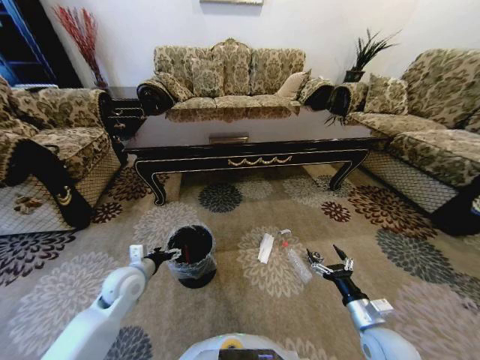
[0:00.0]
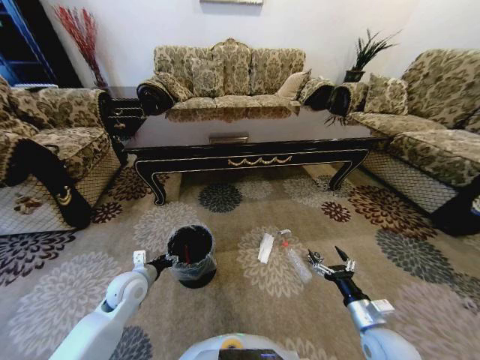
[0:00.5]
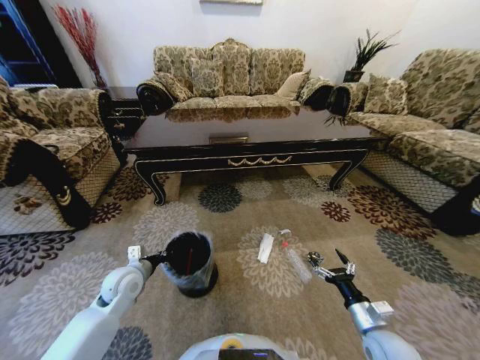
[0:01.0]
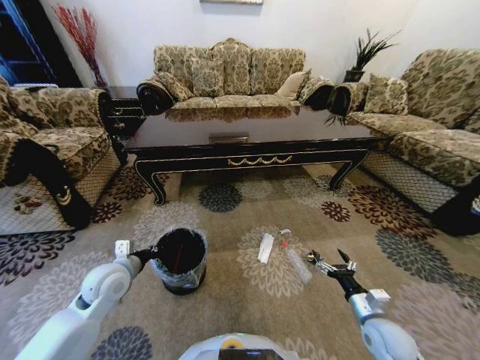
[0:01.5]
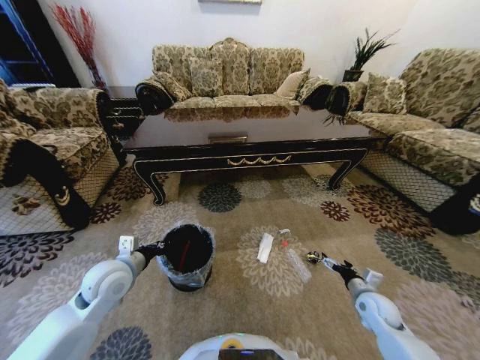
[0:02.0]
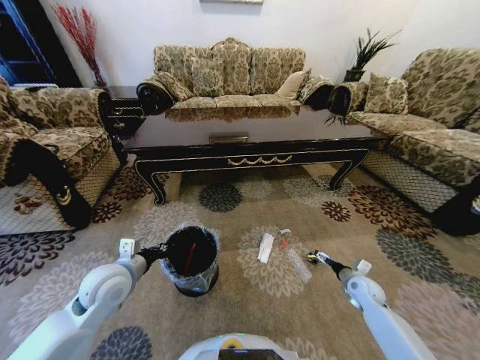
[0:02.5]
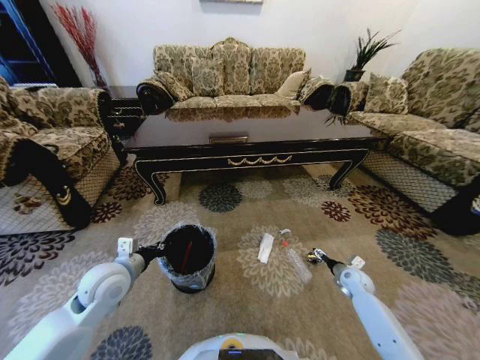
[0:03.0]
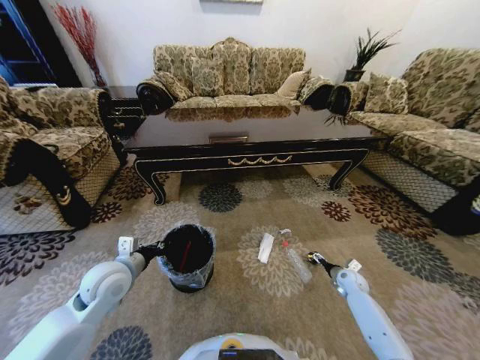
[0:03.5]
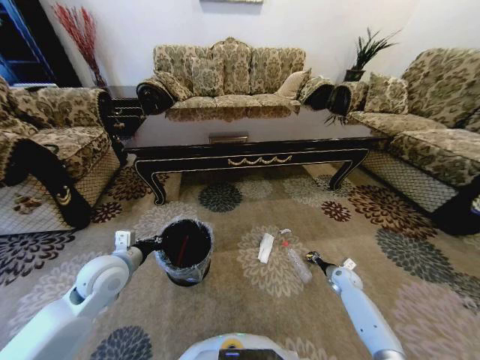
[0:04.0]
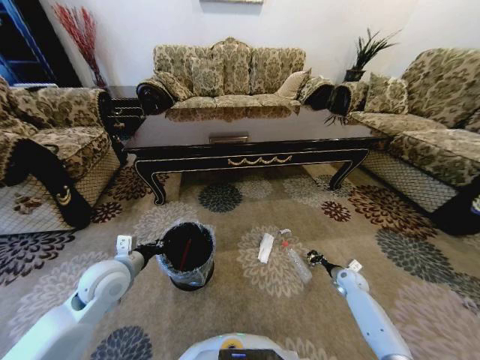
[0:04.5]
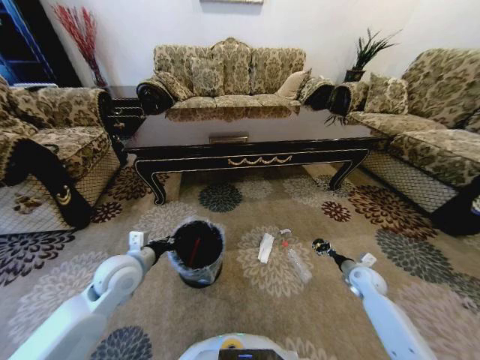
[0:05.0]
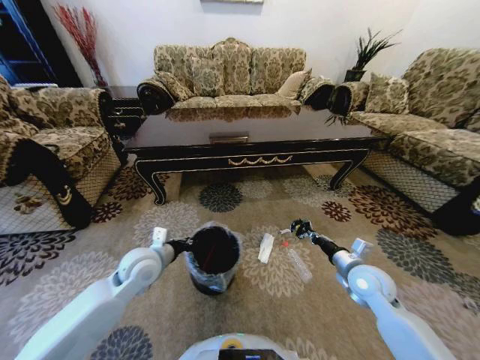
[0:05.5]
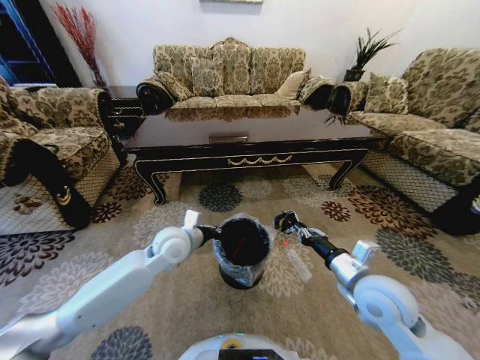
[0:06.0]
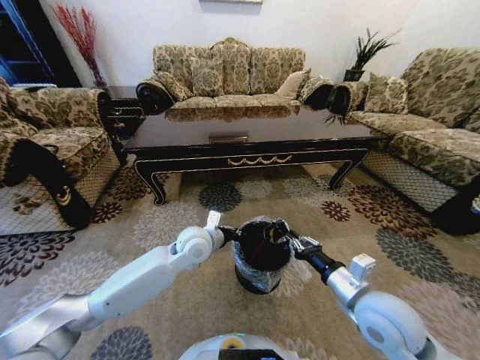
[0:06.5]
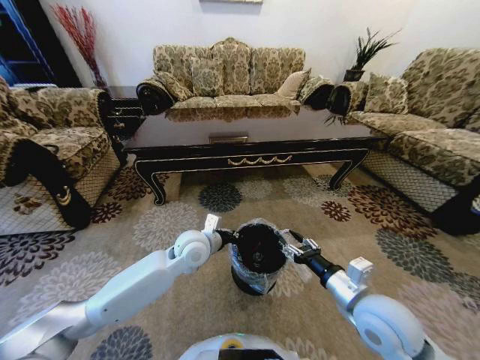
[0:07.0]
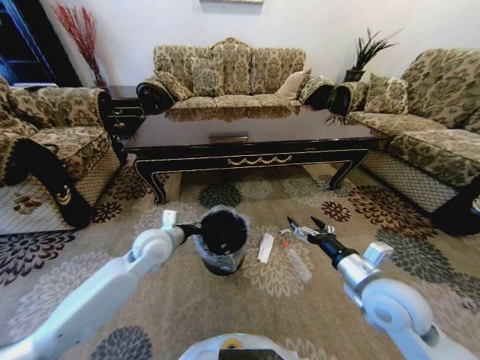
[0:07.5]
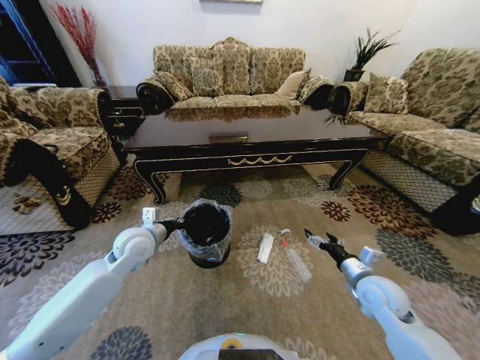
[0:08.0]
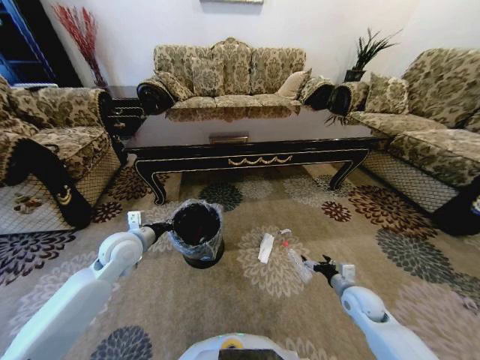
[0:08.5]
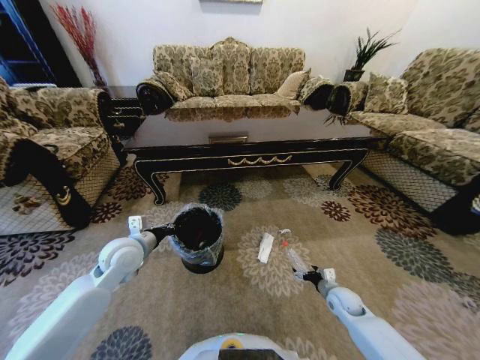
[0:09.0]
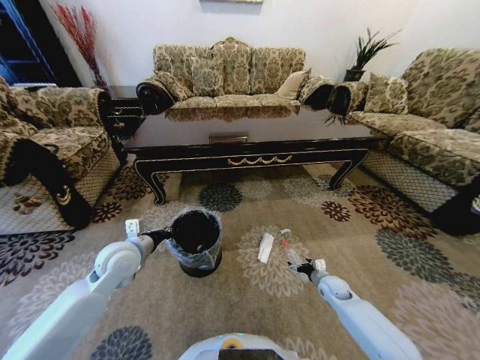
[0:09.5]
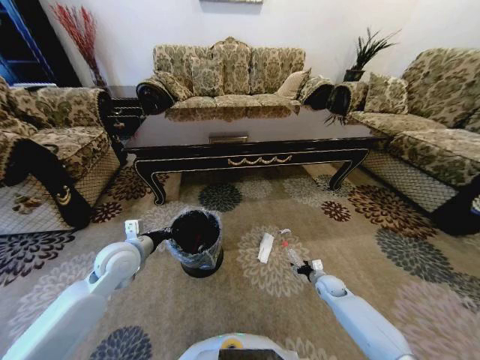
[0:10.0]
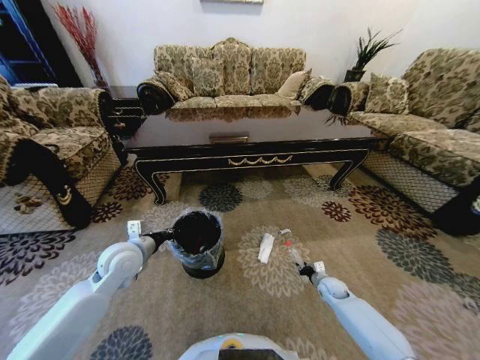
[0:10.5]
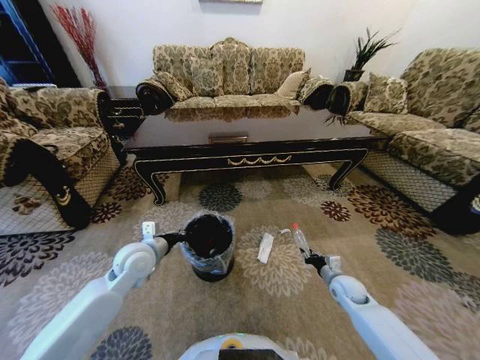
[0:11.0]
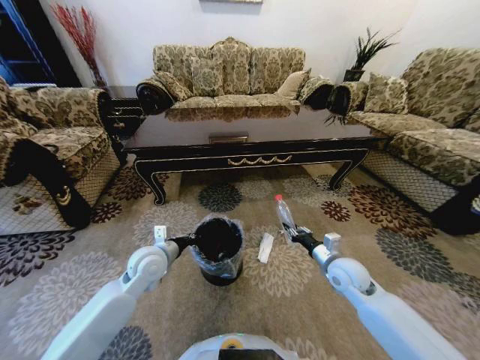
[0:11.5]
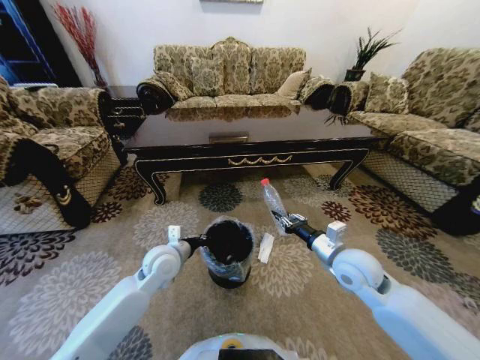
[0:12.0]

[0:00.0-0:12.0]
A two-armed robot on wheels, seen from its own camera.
Task of the whole recording: Move to the front of the table and pick up the trash from the floor, then place it into the trash bin.
0:00.0 to 0:02.0: The right gripper moves forward, to the right and downward, roughly 15 cm. The left gripper goes about 5 cm upward, and closes up.
0:02.0 to 0:04.0: The right gripper goes about 15 cm forward and downward, and closes up.
0:04.0 to 0:06.0: The right gripper travels upward, to the left and backward by some 35 cm, and closes up; the left gripper shifts some 15 cm to the right and forward.
0:06.0 to 0:08.0: The left gripper moves to the left, about 10 cm. The right gripper moves downward and to the right, roughly 10 cm, and opens up.
0:08.0 to 0:10.0: The right gripper shifts some 25 cm downward and forward.
0:10.0 to 0:12.0: The right gripper heads upward, covering about 30 cm, and closes; the left gripper shifts roughly 10 cm to the right.

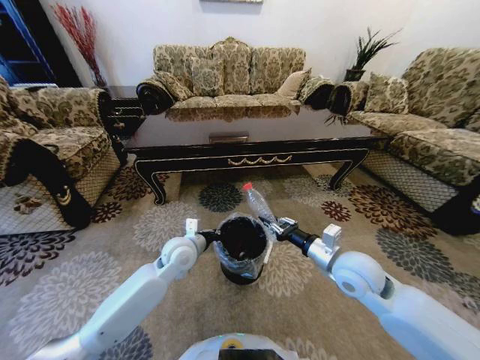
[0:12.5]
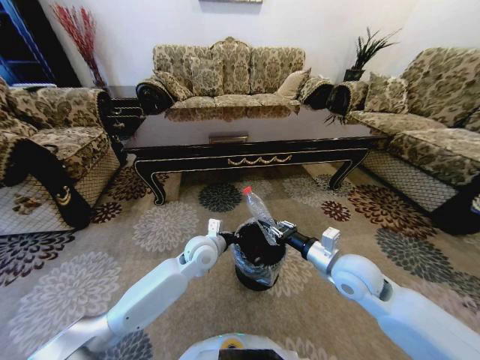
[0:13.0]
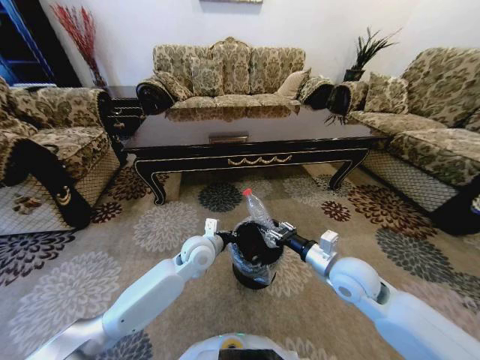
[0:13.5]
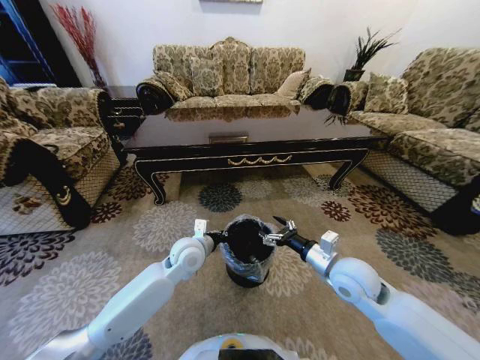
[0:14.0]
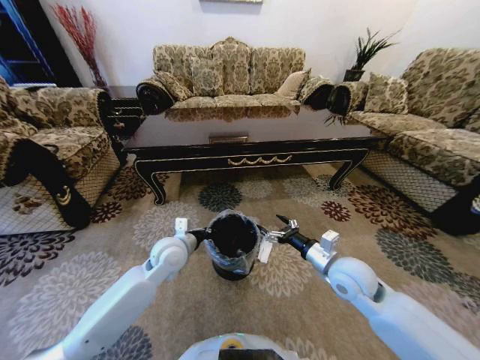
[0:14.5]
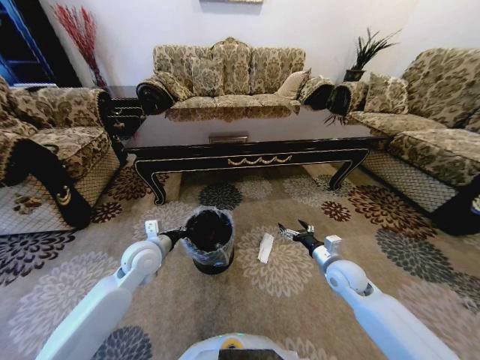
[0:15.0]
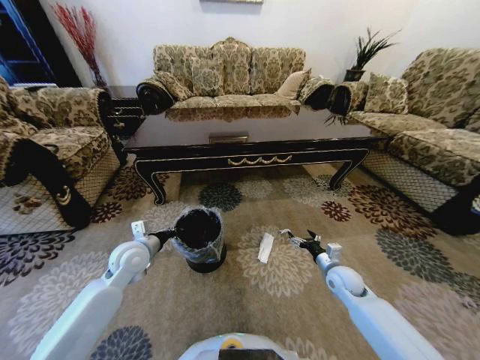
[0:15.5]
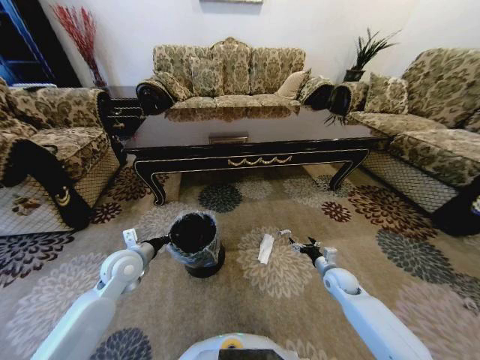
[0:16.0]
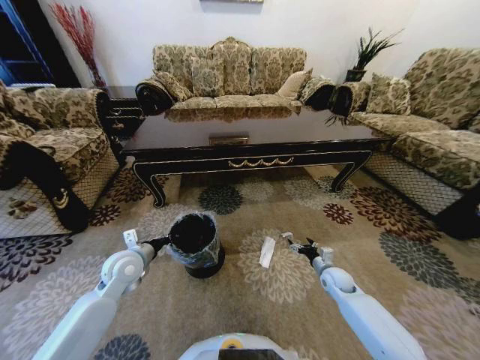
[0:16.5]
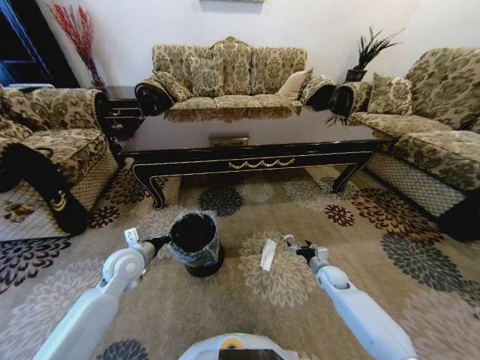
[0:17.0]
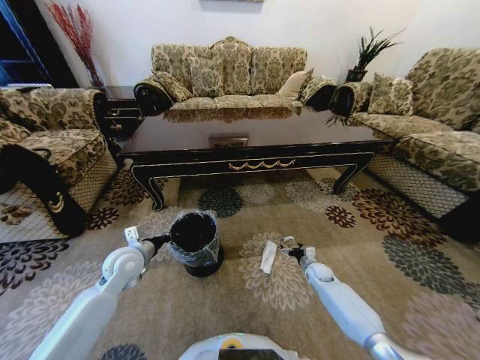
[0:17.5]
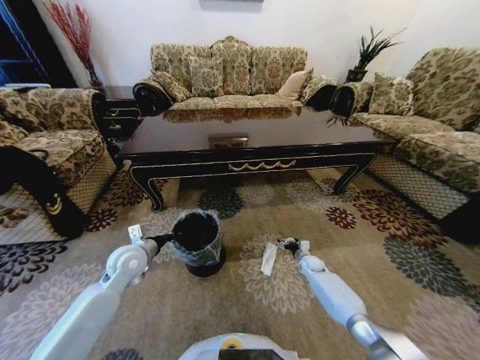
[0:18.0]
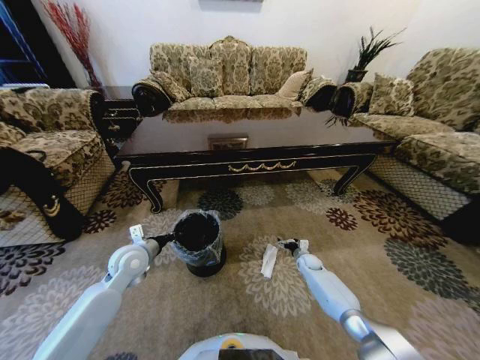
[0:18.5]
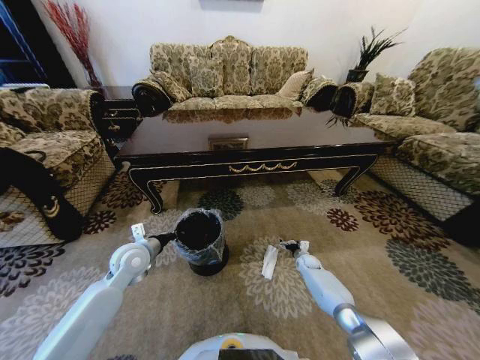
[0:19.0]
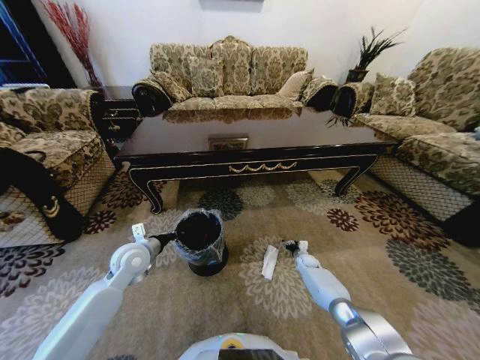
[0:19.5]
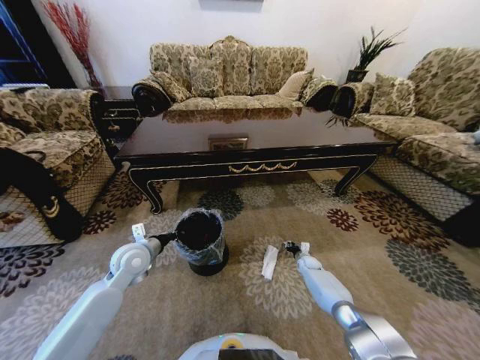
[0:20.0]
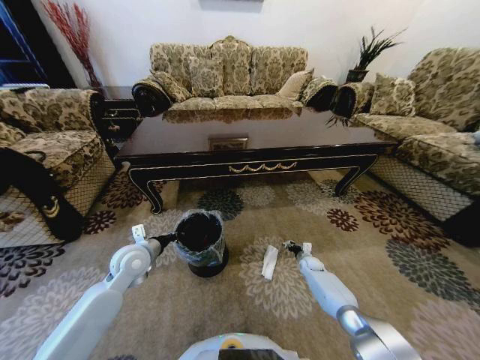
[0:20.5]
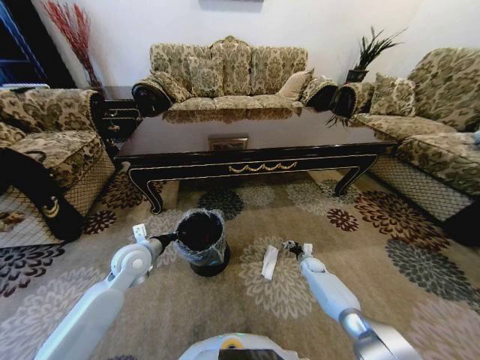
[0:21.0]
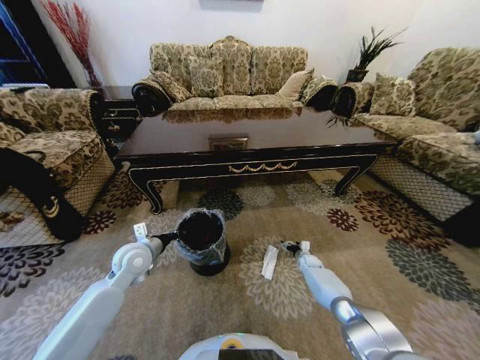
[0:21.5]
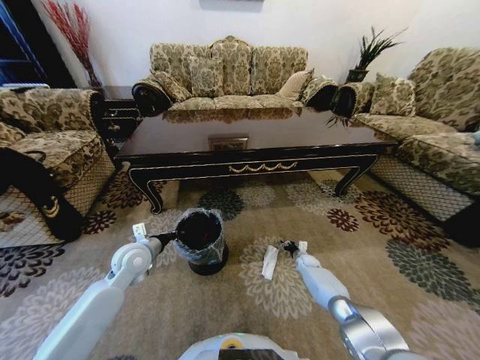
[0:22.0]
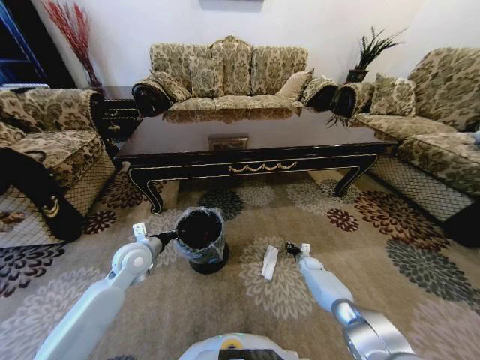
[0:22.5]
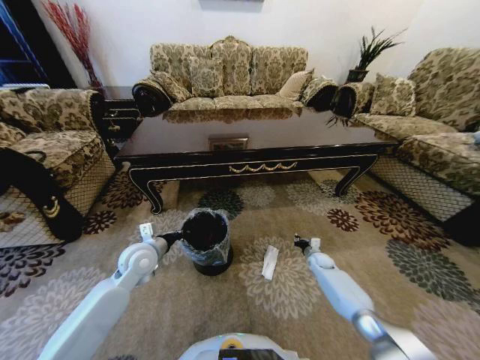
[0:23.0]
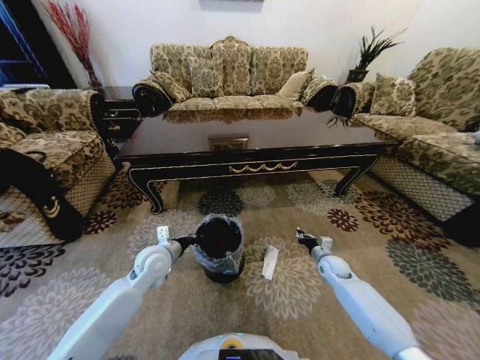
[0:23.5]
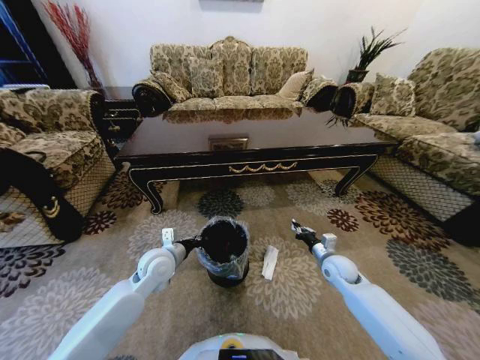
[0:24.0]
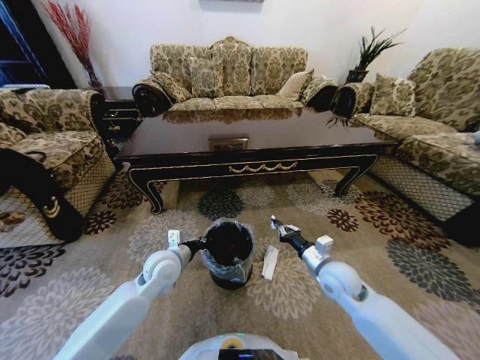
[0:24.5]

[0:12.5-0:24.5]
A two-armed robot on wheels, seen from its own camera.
Task of the whole recording: Move to the front of the table and pick up the trash from the floor, then place it into the trash bin.
0:12.5 to 0:14.5: The right gripper opens, while the left gripper reaches about 5 cm to the right, then returns.
0:14.5 to 0:16.5: The right gripper shifts approximately 20 cm downward and to the right. The left gripper travels to the left by approximately 10 cm.
0:16.5 to 0:18.5: The right gripper is displaced forward and downward by roughly 15 cm.
0:18.5 to 0:20.5: The right gripper closes.
0:20.5 to 0:22.5: The right gripper opens and closes again.
0:22.5 to 0:24.5: The right gripper moves upward and backward, about 30 cm; the left gripper shifts about 10 cm to the right.

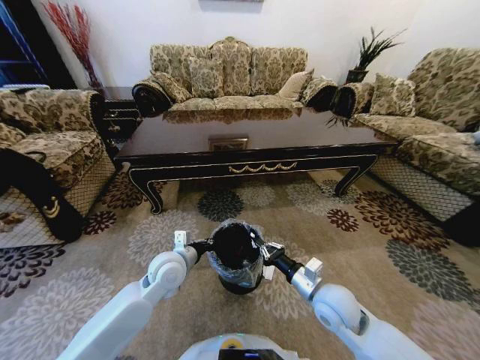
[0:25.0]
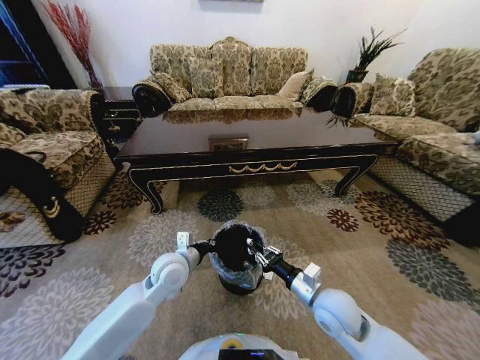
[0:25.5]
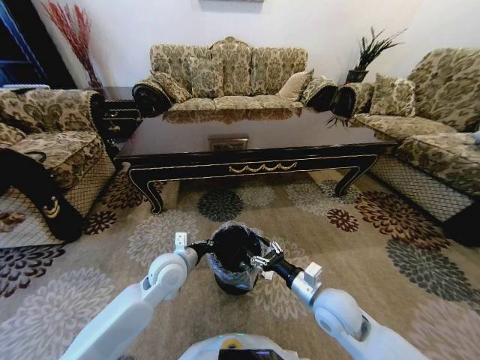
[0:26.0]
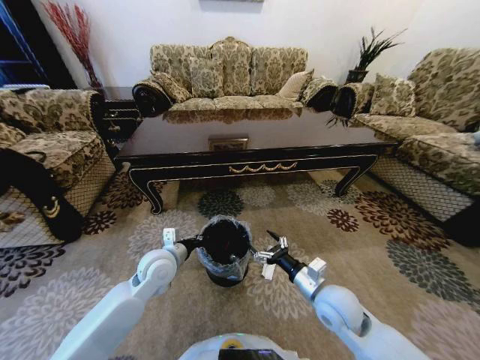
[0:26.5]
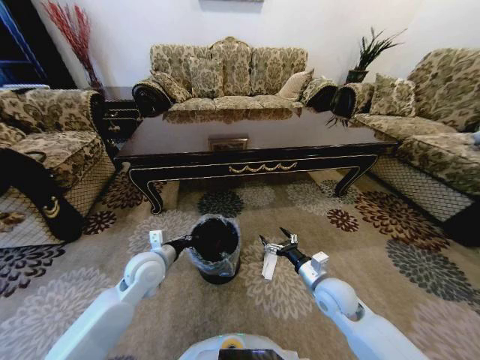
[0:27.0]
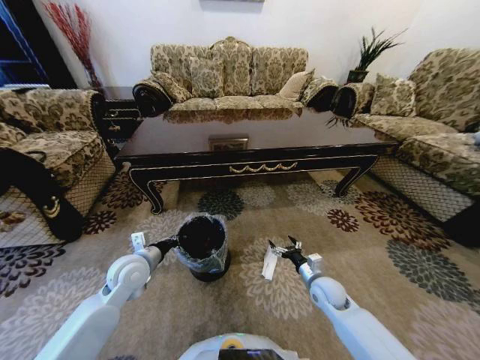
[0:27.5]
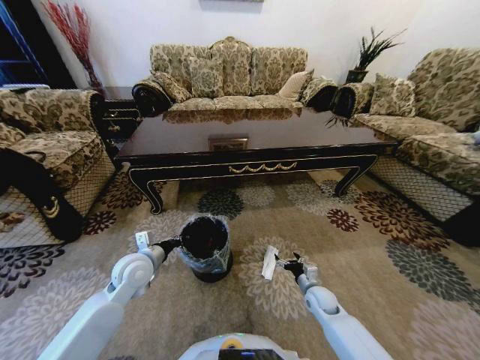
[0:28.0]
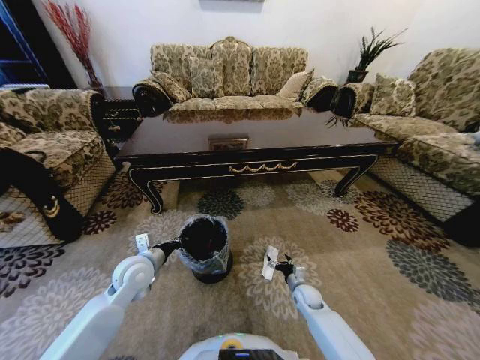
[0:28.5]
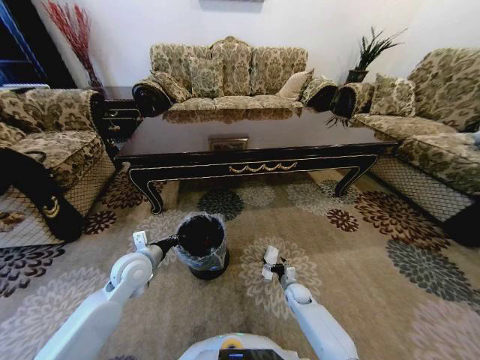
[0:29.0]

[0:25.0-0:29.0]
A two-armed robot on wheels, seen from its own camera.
Task of the whole recording: Move to the front of the table and pick up the trash from the floor, then place it into the trash bin.
0:25.0 to 0:27.0: The right gripper ends up approximately 5 cm from where it was, and opens, while the left gripper heads to the left, covering about 5 cm.
0:27.0 to 0:29.0: The right gripper is displaced downward by about 25 cm.
